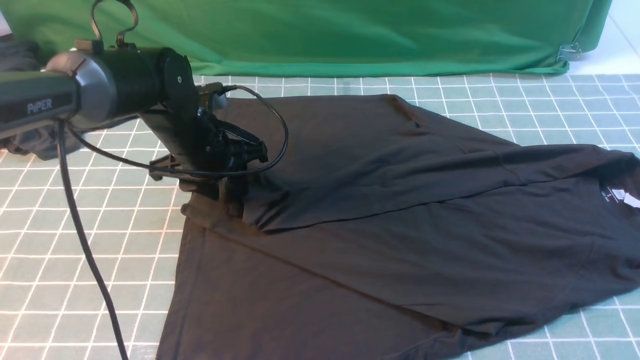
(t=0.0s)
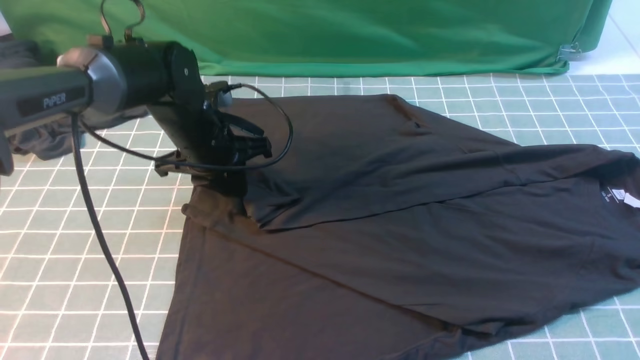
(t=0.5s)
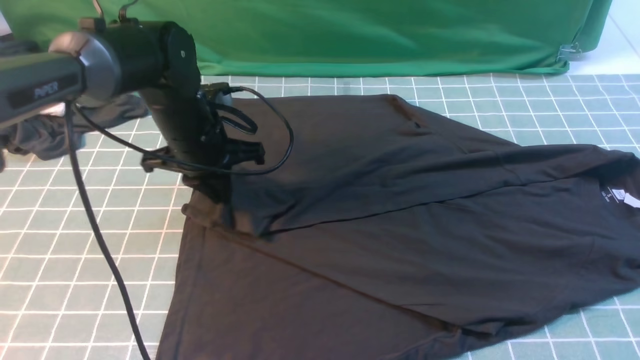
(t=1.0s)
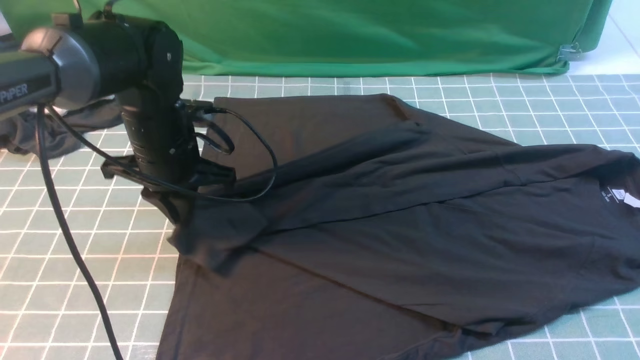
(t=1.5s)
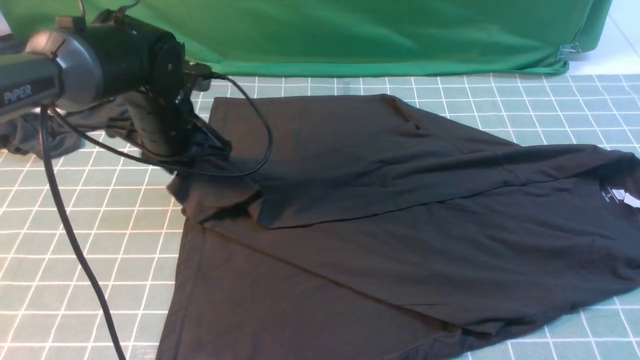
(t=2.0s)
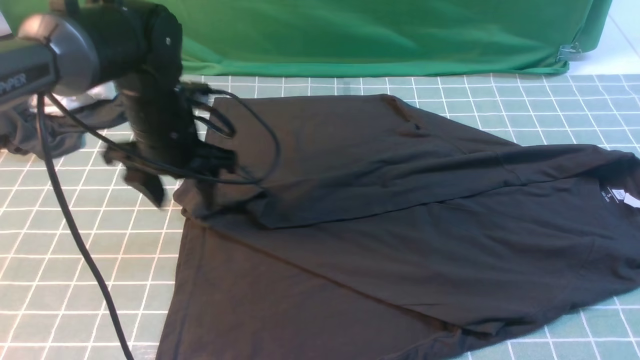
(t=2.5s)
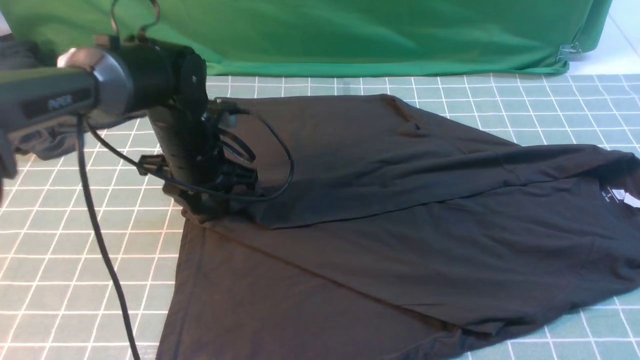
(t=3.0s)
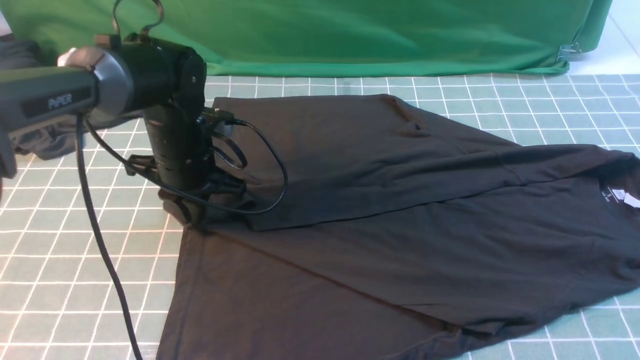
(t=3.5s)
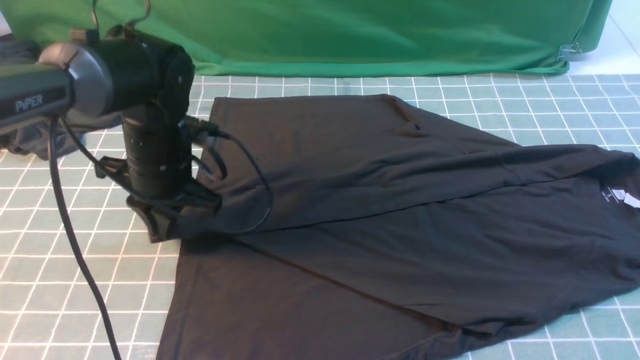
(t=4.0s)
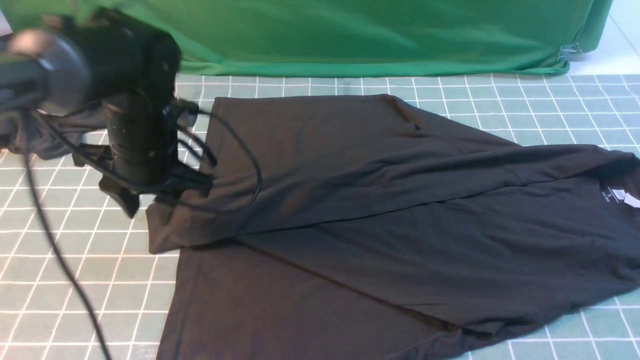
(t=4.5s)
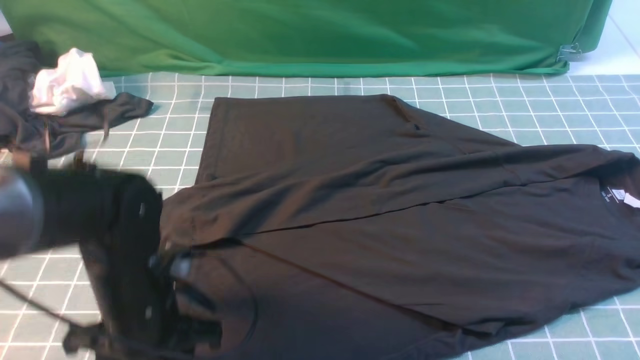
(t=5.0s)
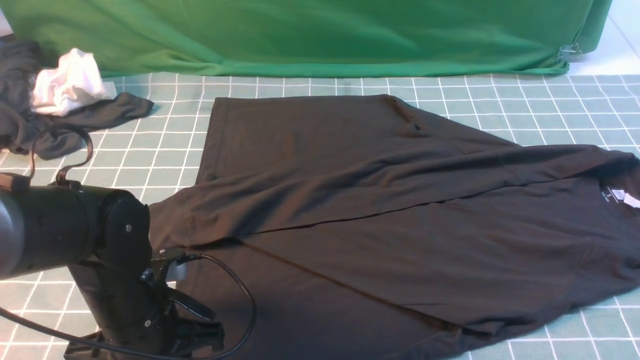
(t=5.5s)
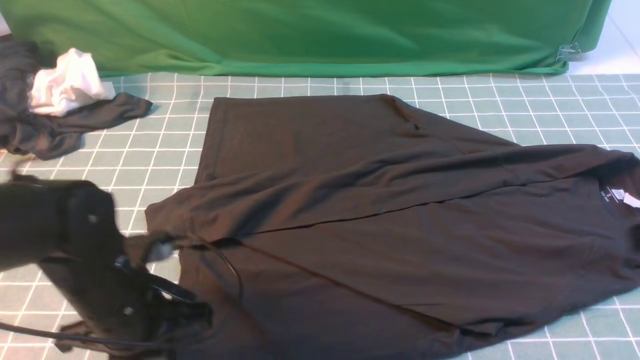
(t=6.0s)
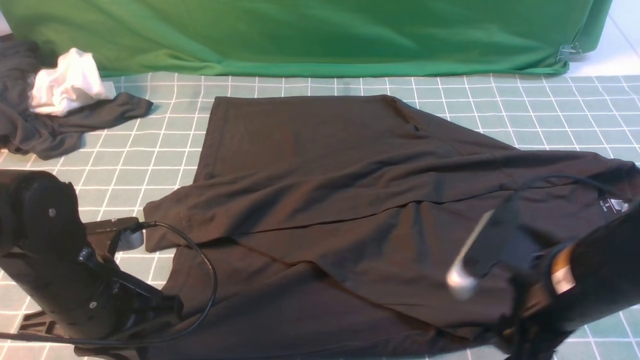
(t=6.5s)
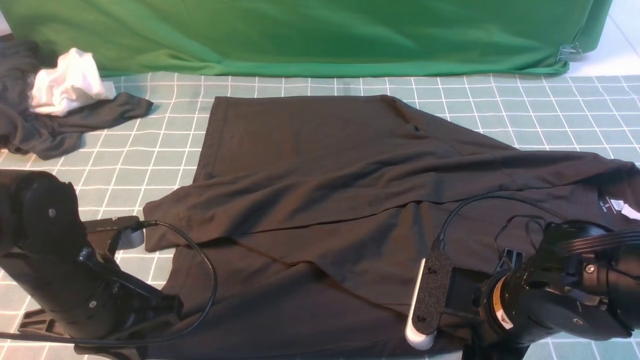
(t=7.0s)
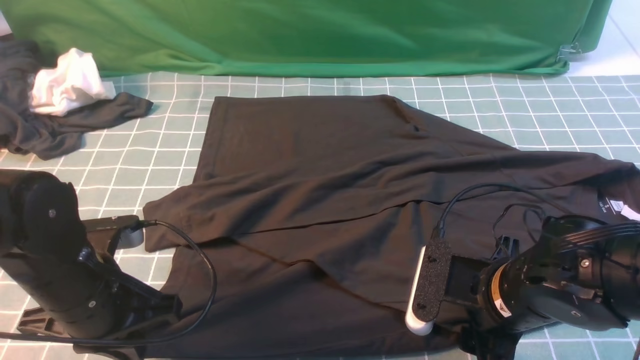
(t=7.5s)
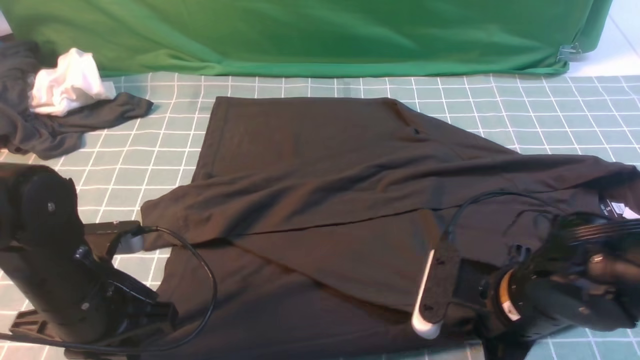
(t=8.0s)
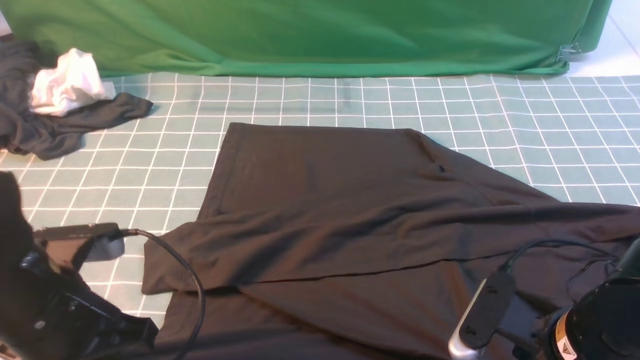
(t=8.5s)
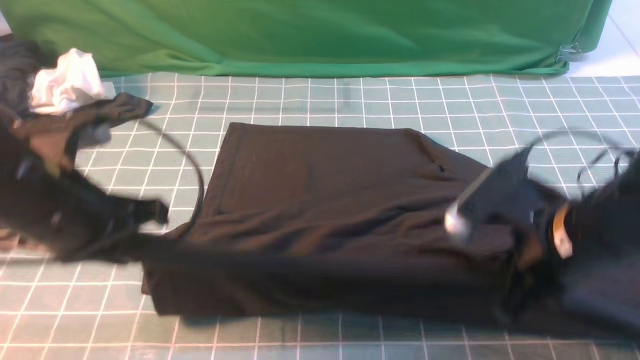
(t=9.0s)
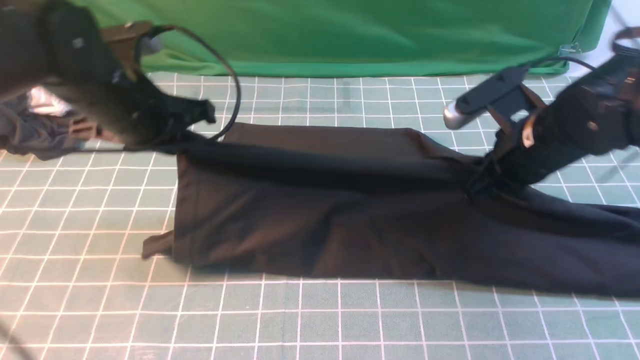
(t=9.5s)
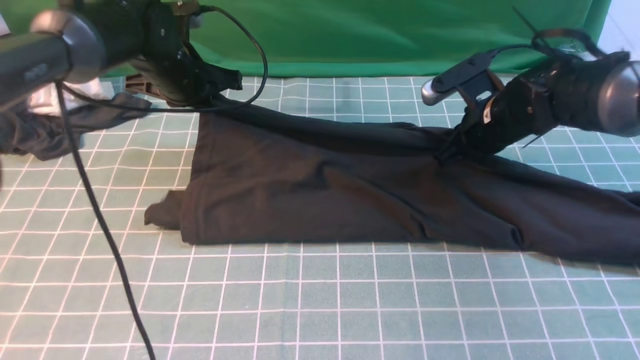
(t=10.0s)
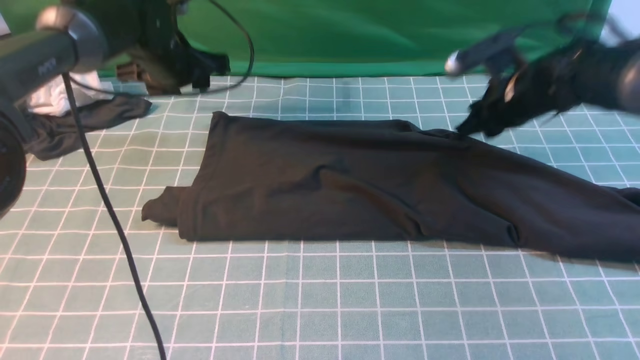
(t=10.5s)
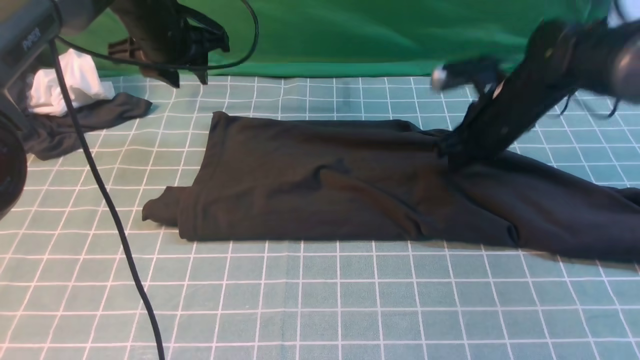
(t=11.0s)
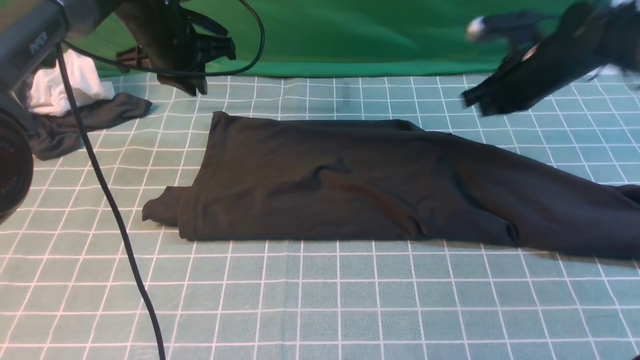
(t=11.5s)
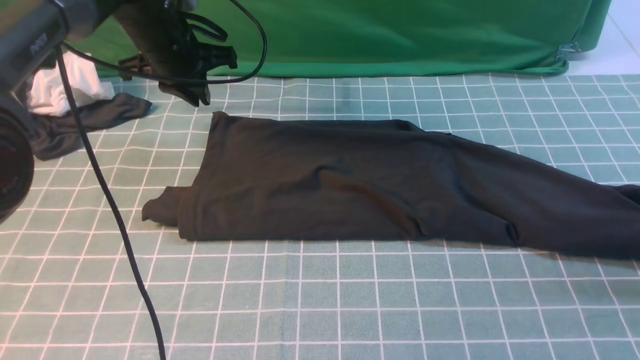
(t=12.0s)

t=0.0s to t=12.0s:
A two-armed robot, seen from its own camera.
Step, t=0.0s to t=4.5s: use the left arm to drag and drop the cuff onto the cuff closest to the left arm.
Step, t=5.0s to t=8.0s: use both arms simultaneously to clamp the lower edge of the clothing fabric.
Step, t=8.5s to t=10.5s: use both arms to drag the lower edge of the fabric forward and fold it over the upper edge.
t=2.0s to t=4.0s: The left gripper opens and closes again.
t=4.0s to t=6.0s: The left gripper moves backward, roughly 15 cm, and opens, then closes once more; the right gripper is displaced downward by roughly 5 cm.
t=6.0s to t=8.0s: The right gripper shifts roughly 20 cm downward and to the left, and closes its fingers.
t=8.0s to t=10.0s: Both grippers move forward, approximately 25 cm.
t=10.0s to t=12.0s: The right gripper goes approximately 20 cm to the right. The left gripper opens, then closes again.

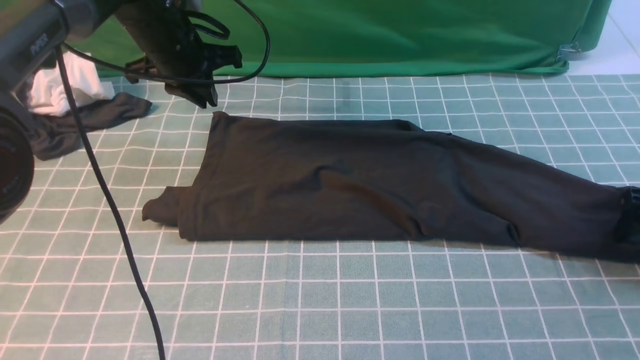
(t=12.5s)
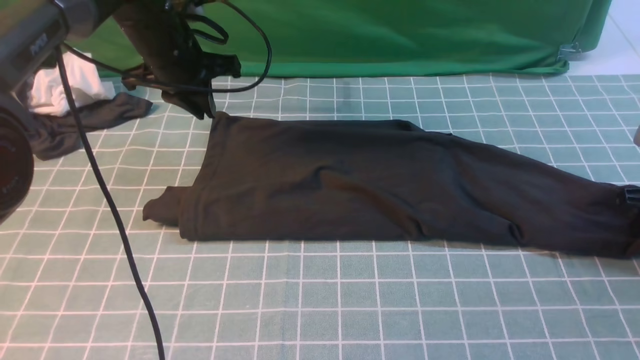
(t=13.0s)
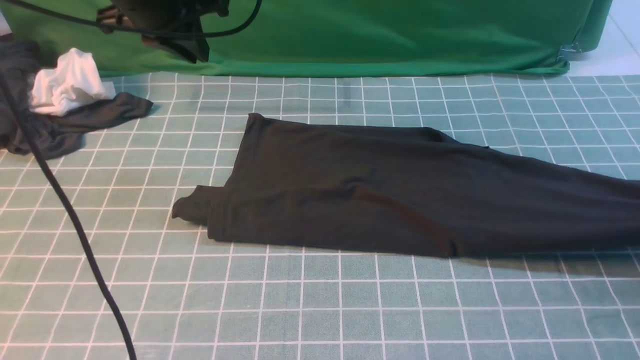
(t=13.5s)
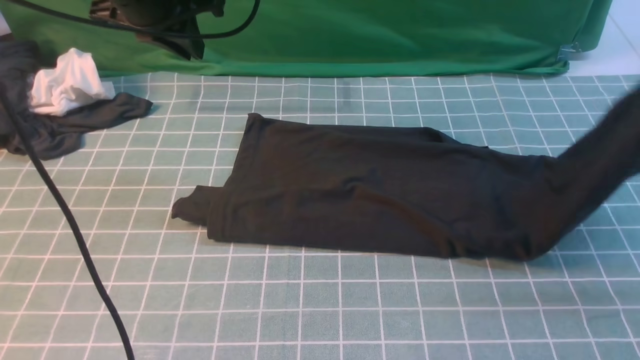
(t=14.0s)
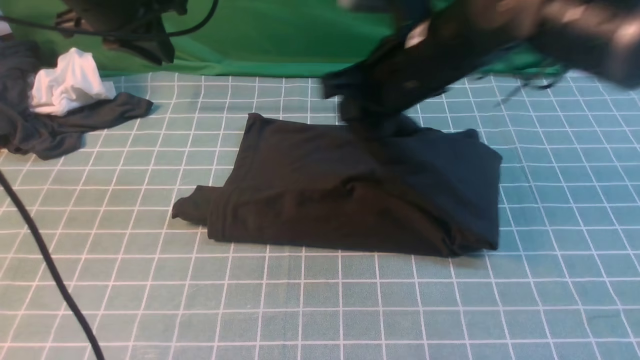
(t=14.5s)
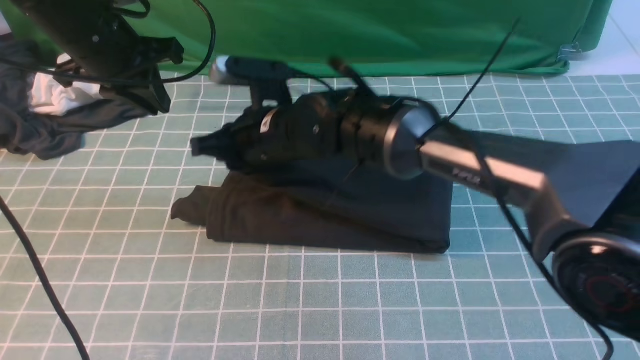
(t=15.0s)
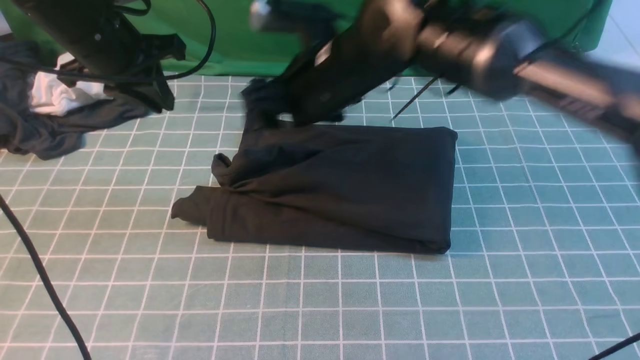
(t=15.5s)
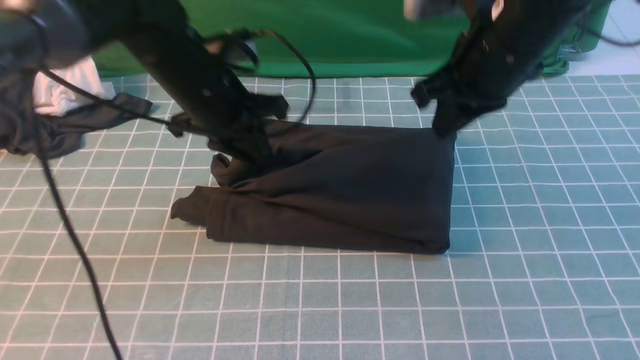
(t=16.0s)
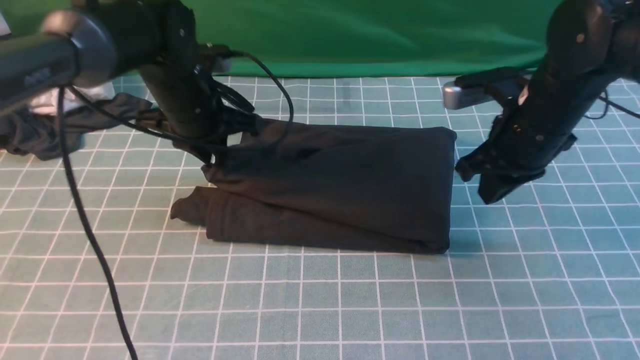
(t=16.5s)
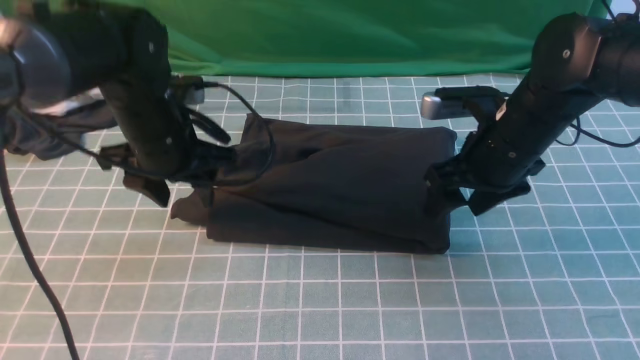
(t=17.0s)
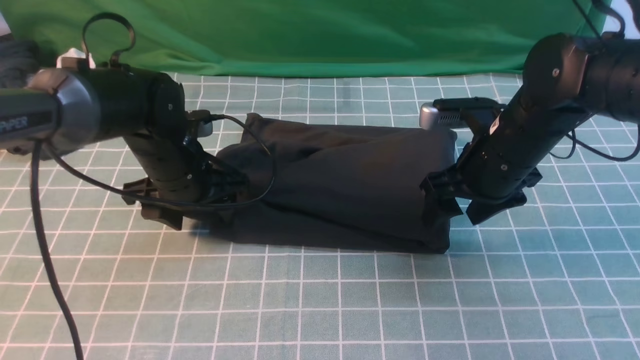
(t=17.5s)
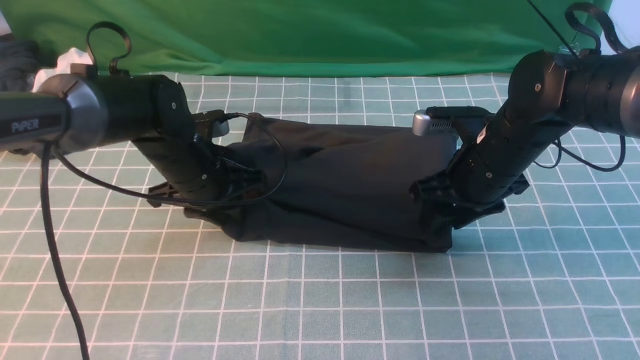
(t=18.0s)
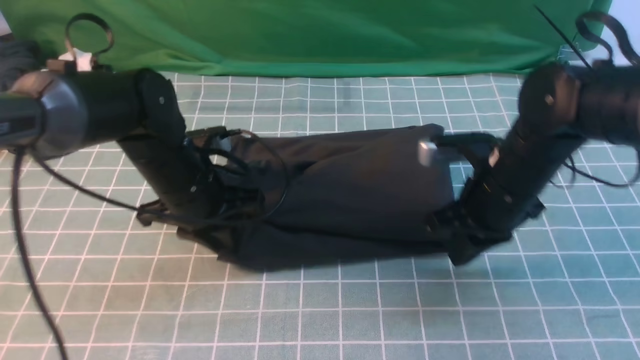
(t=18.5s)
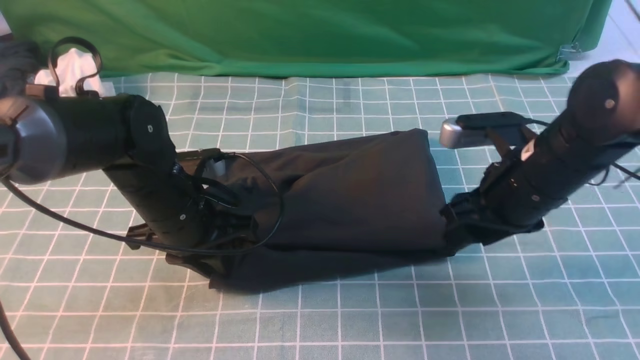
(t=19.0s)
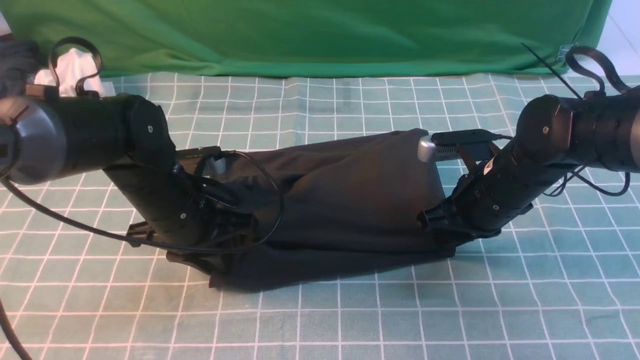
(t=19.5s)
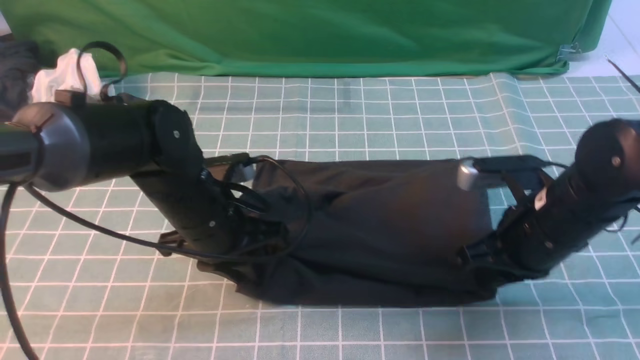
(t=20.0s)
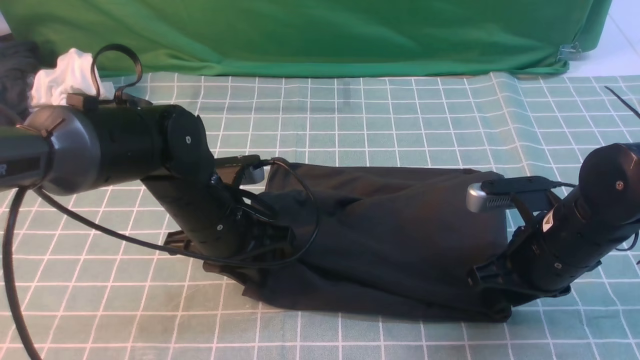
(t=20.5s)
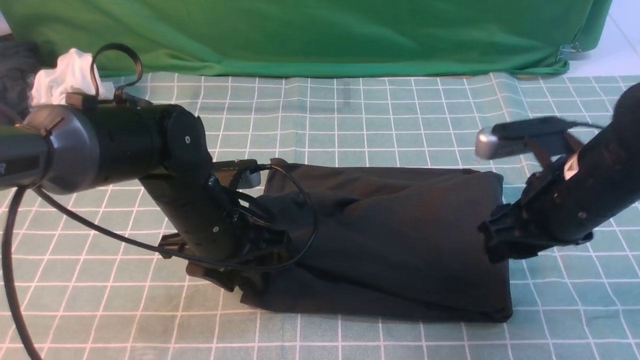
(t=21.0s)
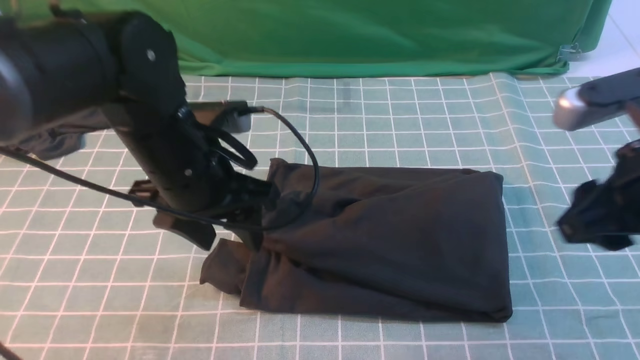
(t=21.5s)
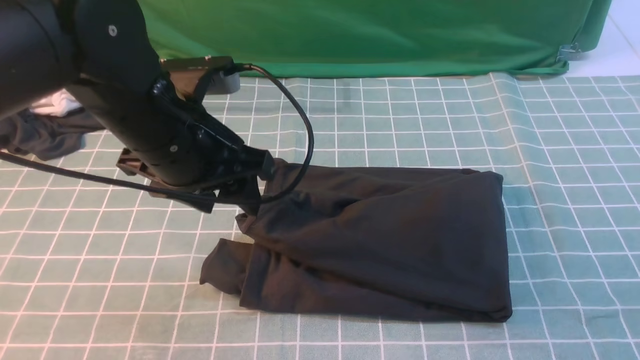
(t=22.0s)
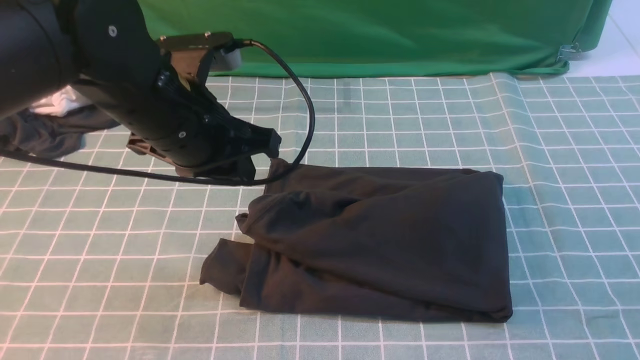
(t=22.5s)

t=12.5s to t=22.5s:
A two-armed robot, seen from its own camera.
Step, t=13.5s to t=15.5s: use the right arm to drag the right edge of the fabric to the left and folds it over the left edge.
t=12.5s to t=14.5s: The left gripper shifts roughly 10 cm upward and backward. The right gripper heads to the left, covering approximately 35 cm, and closes its fingers.
t=14.5s to t=16.5s: The right gripper is displaced to the right and downward by approximately 15 cm, and opens, then closes once more. The left gripper is displaced downward and to the right by some 10 cm.
t=16.5s to t=18.5s: The right gripper ends up about 5 cm from where it was, and opens, then closes once more. Meanwhile the left gripper travels backward and downward by approximately 10 cm, and opens and closes again.
t=18.5s to t=20.5s: The right gripper heads backward, covering roughly 5 cm, and opens up; the left gripper ends up approximately 5 cm from where it was.
t=20.5s to t=22.5s: The left gripper travels upward by roughly 10 cm, and opens, then closes once more. Meanwhile the right gripper shifts approximately 25 cm backward, upward and to the right, and closes its fingers.
